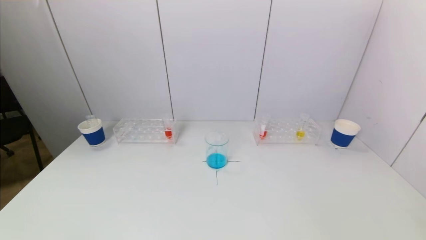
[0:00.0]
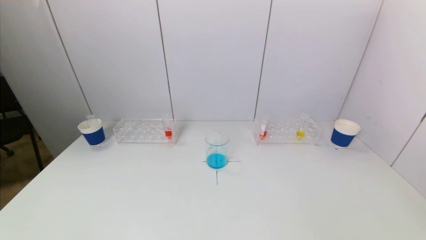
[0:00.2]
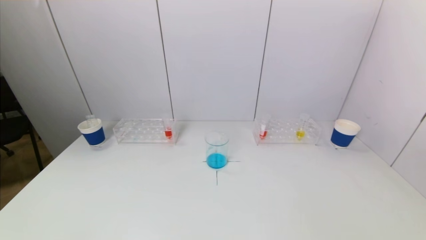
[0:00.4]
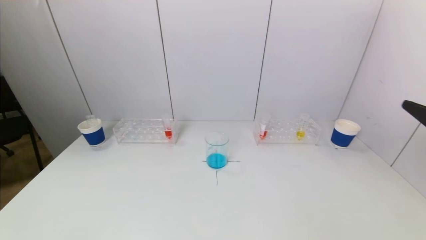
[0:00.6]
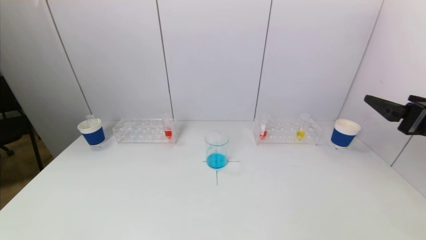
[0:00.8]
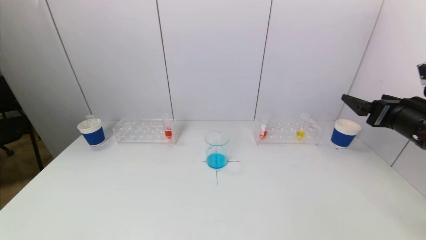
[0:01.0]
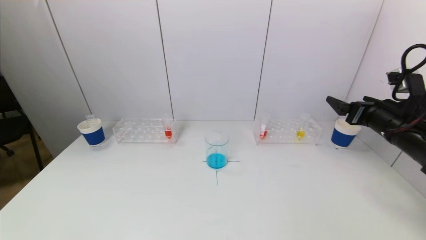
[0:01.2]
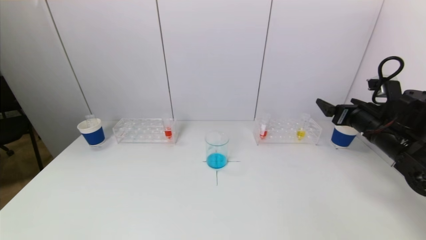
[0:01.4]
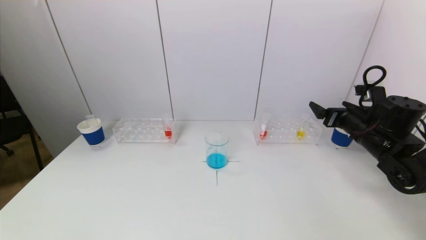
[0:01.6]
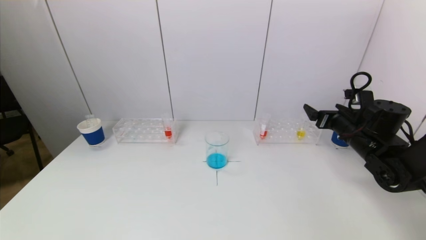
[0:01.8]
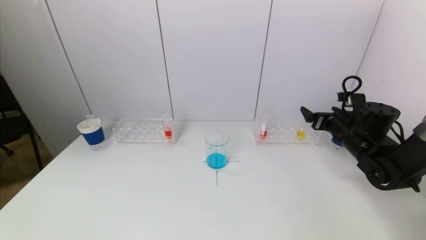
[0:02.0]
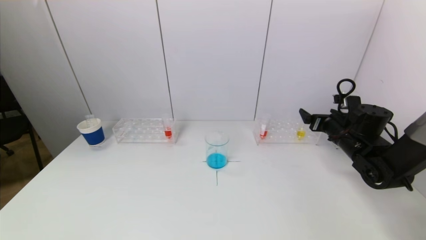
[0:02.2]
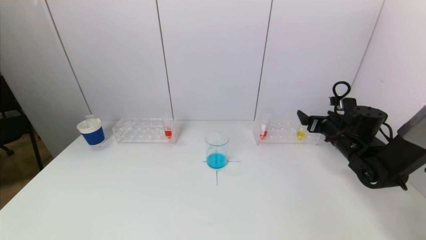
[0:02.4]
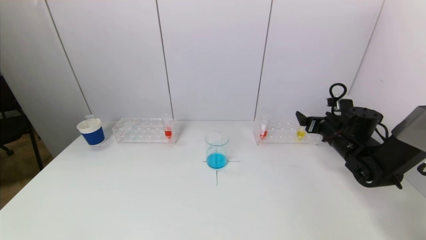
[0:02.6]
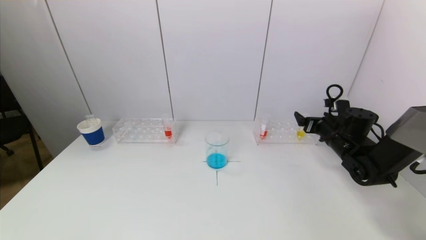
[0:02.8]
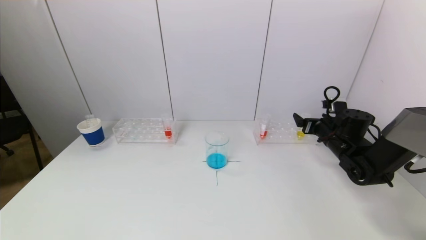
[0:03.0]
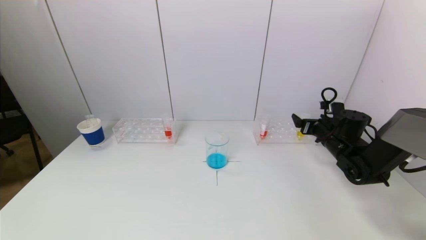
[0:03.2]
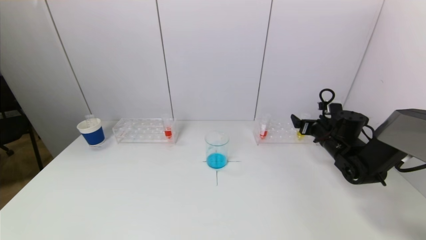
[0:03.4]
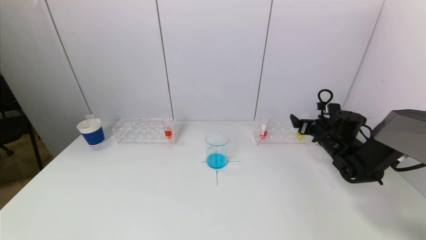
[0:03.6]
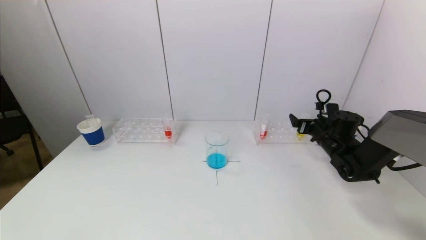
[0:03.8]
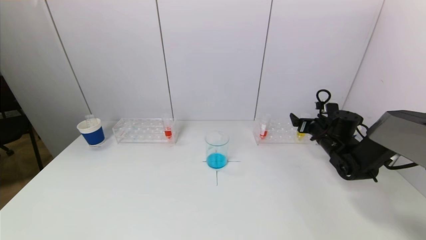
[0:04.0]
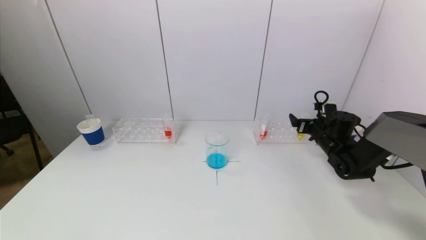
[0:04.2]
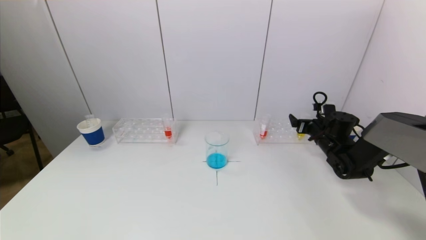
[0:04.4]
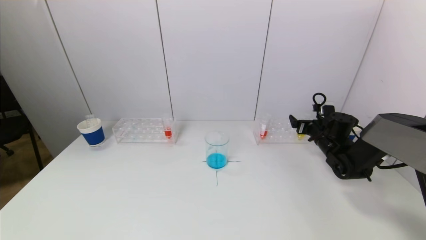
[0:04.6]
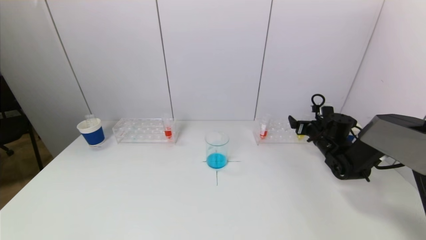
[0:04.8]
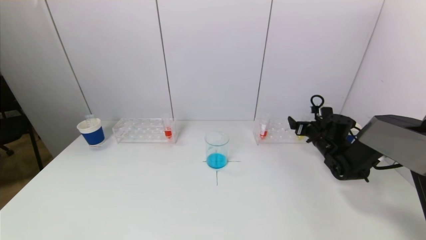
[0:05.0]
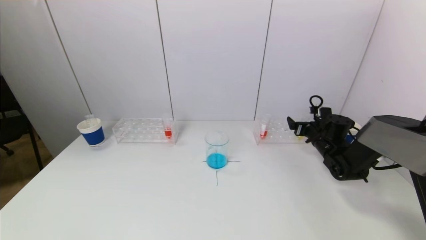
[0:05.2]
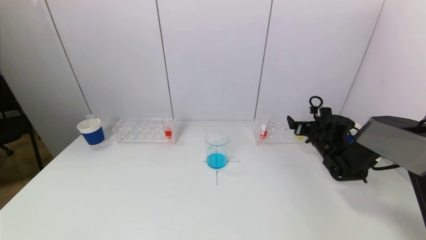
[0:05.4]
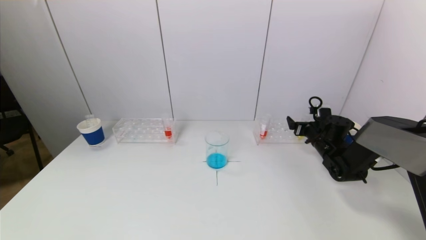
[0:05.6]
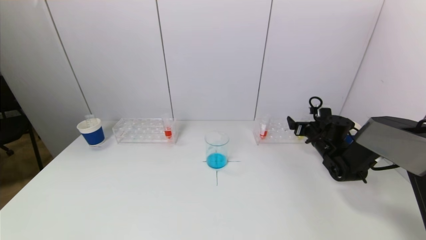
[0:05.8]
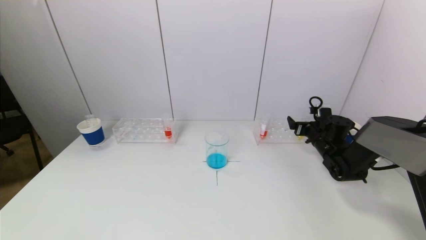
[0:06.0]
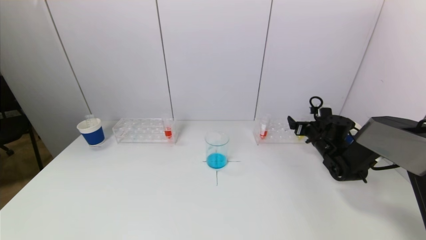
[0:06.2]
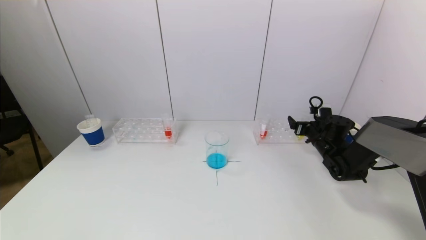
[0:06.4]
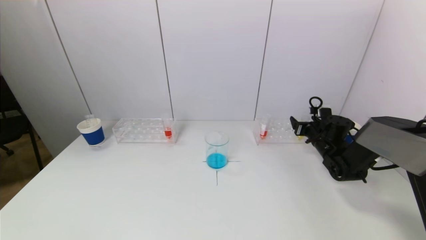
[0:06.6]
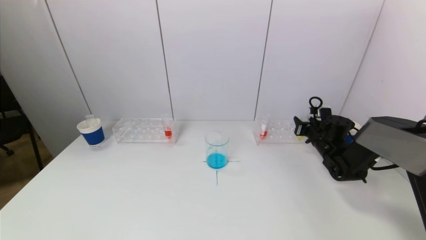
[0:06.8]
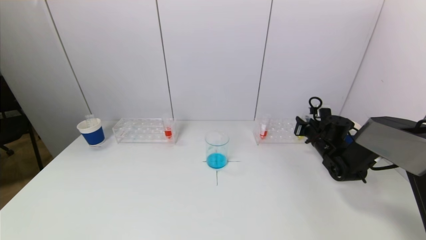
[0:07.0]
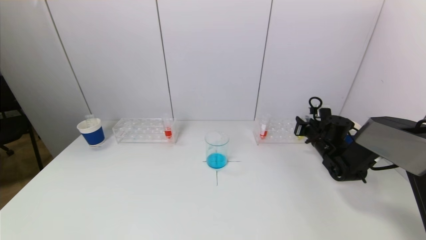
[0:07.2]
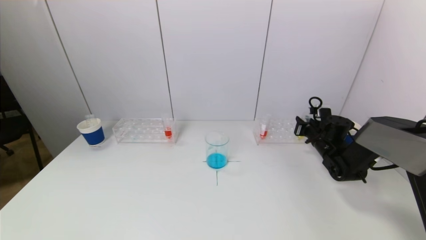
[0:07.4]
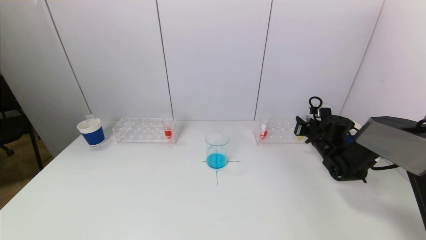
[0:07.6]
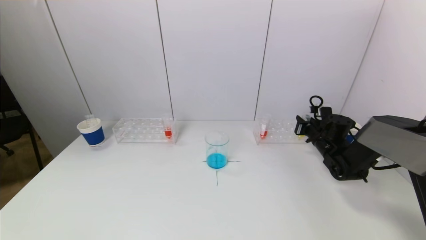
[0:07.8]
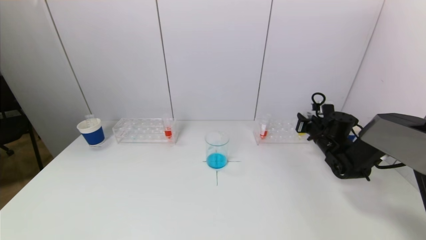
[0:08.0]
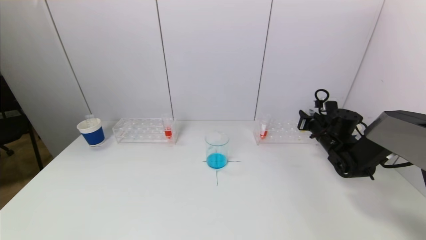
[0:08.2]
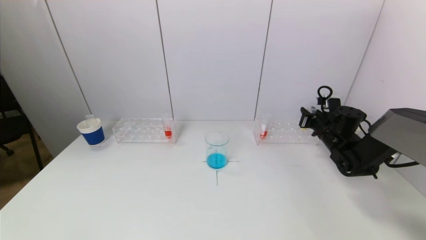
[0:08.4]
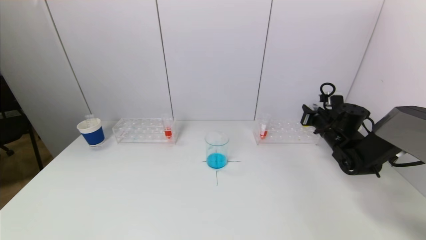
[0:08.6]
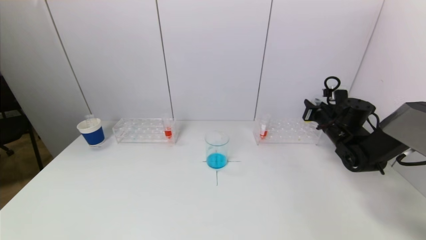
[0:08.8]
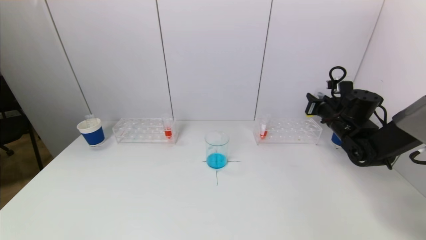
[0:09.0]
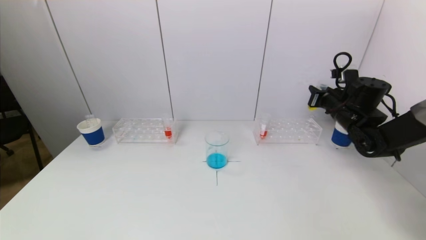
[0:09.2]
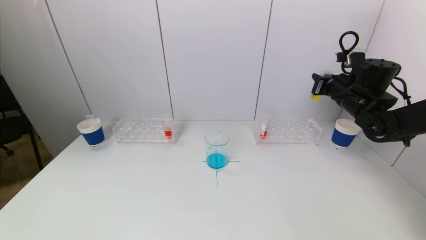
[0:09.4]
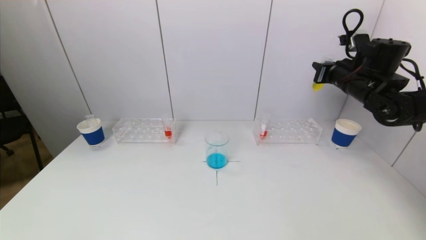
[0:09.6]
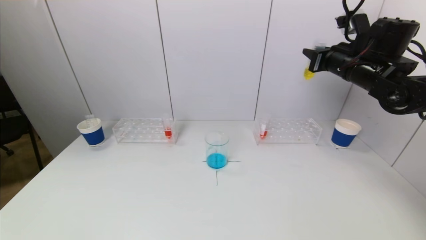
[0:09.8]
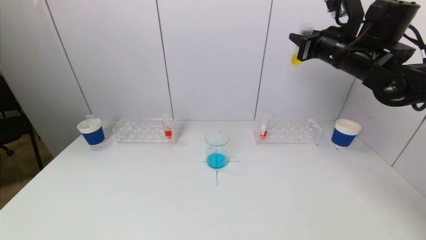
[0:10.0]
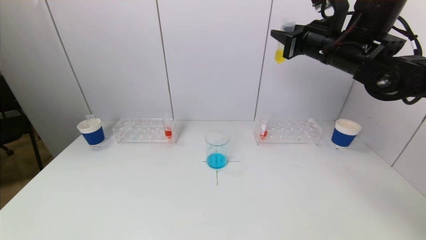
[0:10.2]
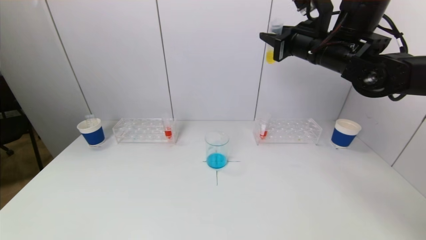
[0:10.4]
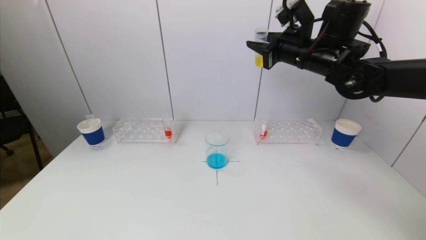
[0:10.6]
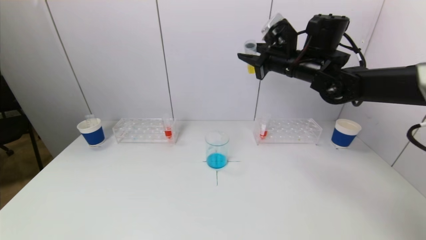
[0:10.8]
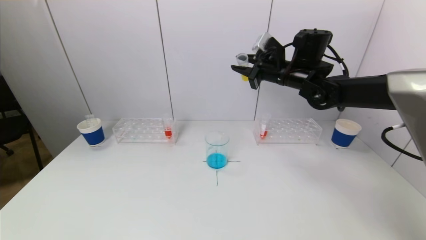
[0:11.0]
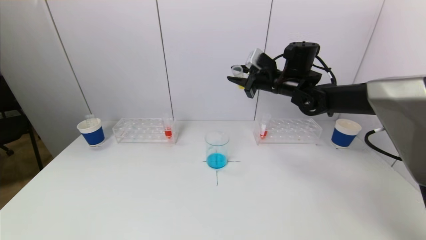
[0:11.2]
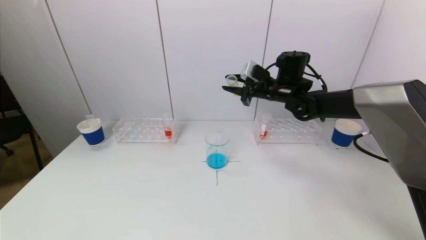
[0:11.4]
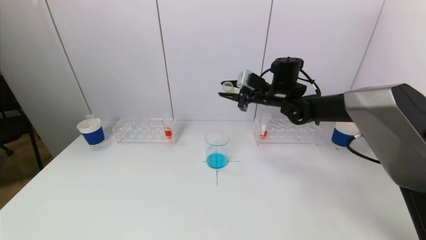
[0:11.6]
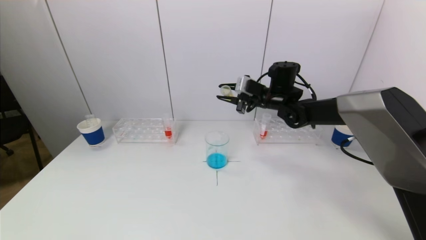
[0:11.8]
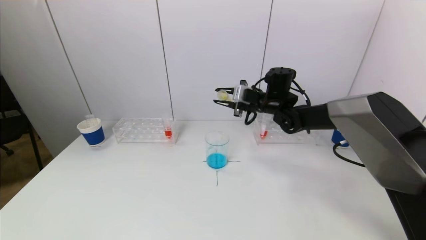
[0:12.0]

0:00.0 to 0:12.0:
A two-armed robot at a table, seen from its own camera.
Task of the whole recording: pick up a test tube with pigment on left test tube rack and a test tube with pigment on right test tube rack by grippers and pour them into the beaker.
Step, 0:00.0 to 0:07.4: Grasp the yellow reagent with the right gripper.
0:00.0 to 0:01.6: The right gripper goes some 35 cm forward.
0:01.6 to 0:03.0: The right gripper heads downward and forward, covering about 10 cm.
0:03.0 to 0:04.4: The grippers stay close to where they were, moving slightly.
0:04.4 to 0:06.0: The grippers make only small movements.
0:07.6 to 0:09.0: The right gripper travels upward by about 10 cm.
0:09.0 to 0:10.4: The right gripper moves upward and to the left, about 20 cm.
0:10.4 to 0:12.0: The right gripper travels downward, forward and to the left by approximately 20 cm.

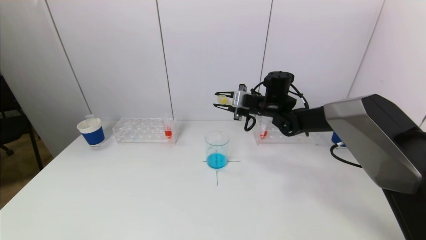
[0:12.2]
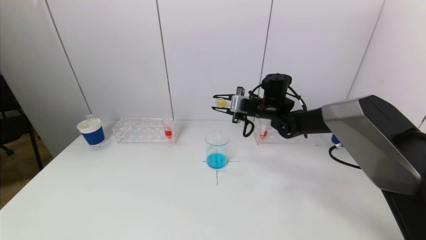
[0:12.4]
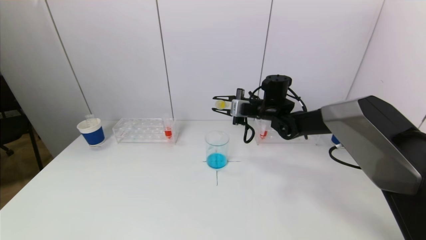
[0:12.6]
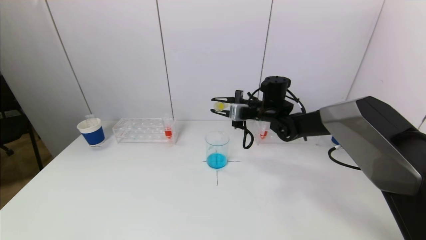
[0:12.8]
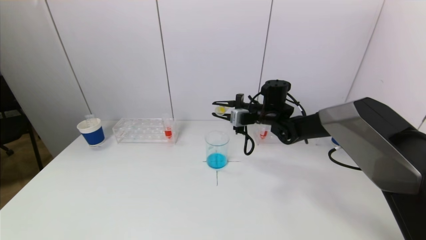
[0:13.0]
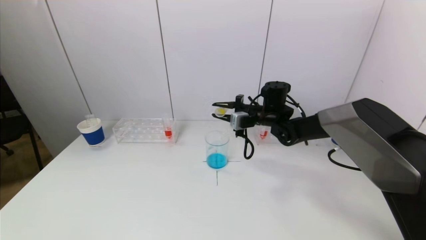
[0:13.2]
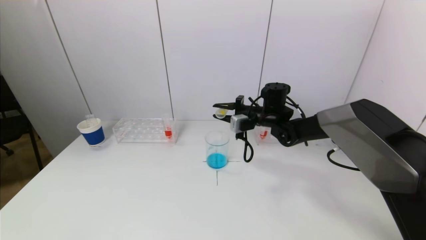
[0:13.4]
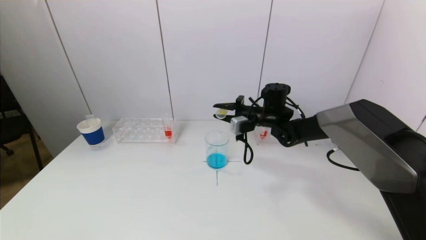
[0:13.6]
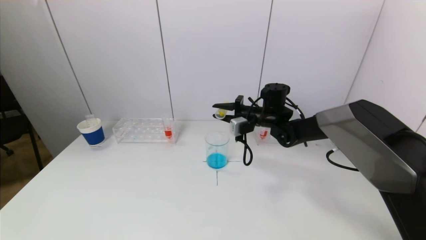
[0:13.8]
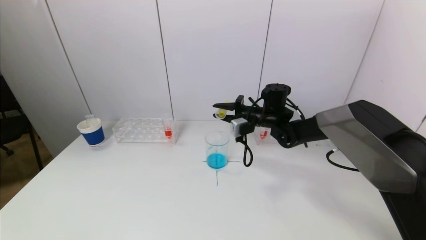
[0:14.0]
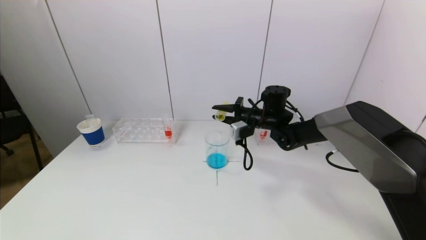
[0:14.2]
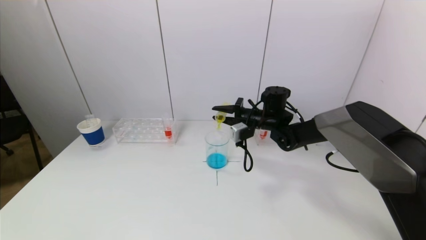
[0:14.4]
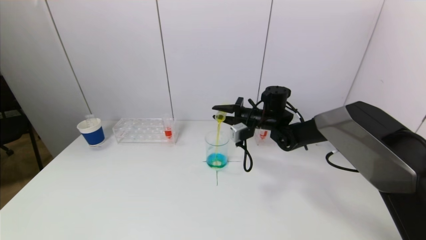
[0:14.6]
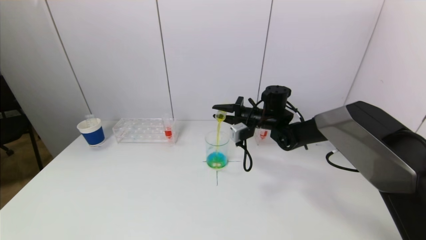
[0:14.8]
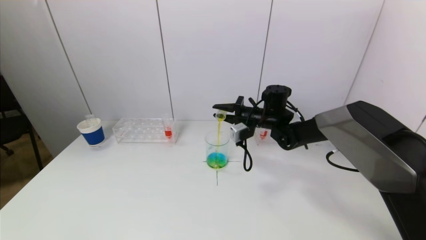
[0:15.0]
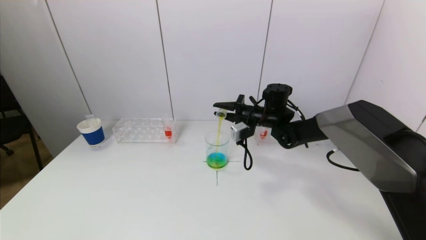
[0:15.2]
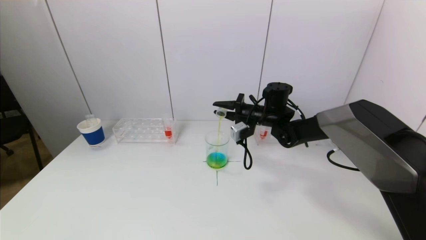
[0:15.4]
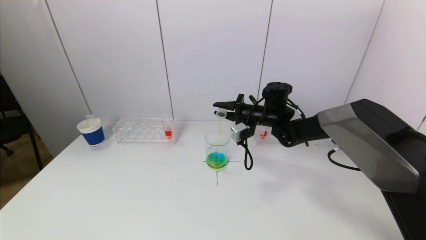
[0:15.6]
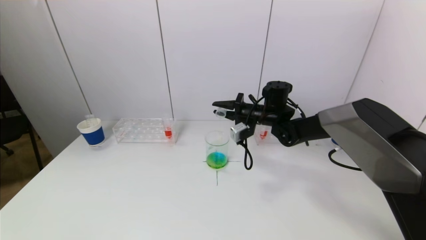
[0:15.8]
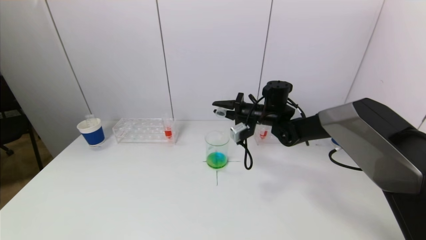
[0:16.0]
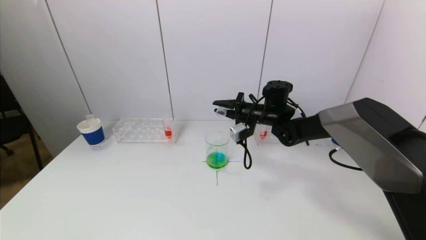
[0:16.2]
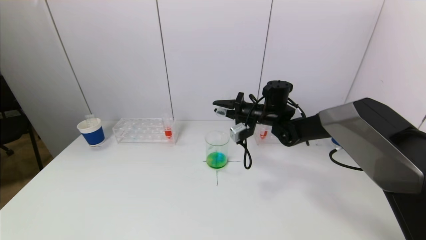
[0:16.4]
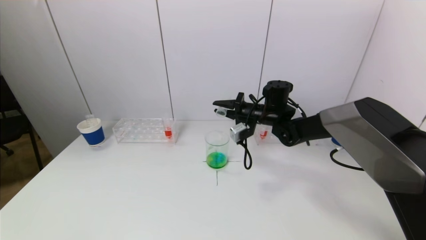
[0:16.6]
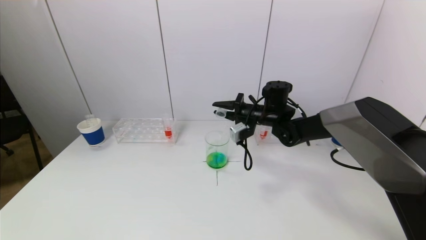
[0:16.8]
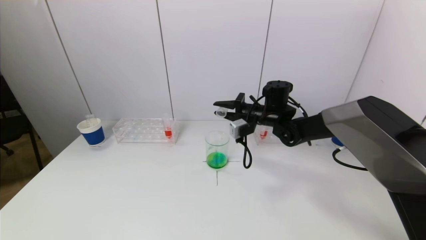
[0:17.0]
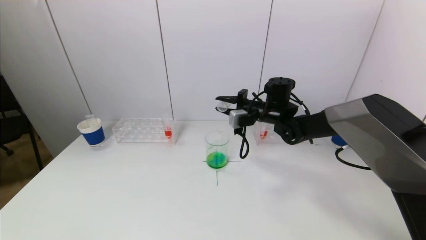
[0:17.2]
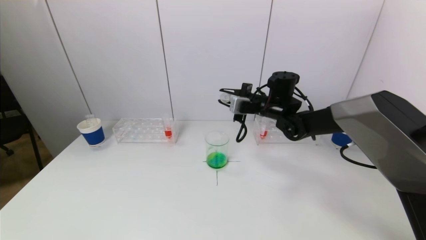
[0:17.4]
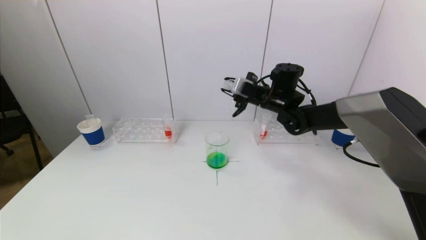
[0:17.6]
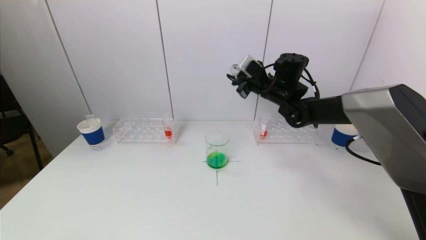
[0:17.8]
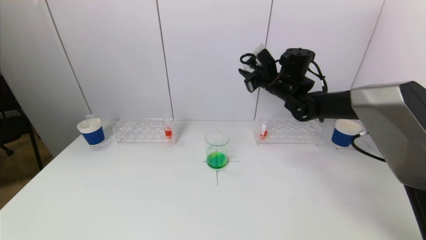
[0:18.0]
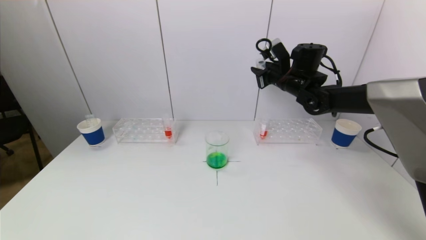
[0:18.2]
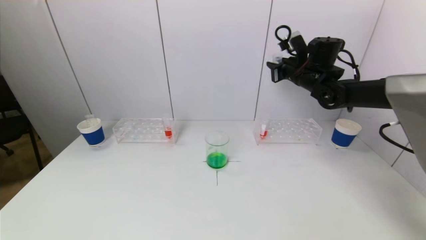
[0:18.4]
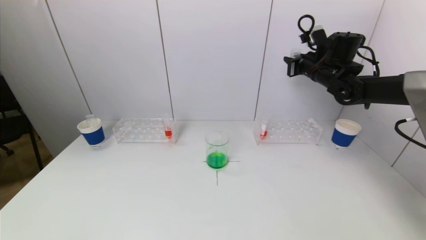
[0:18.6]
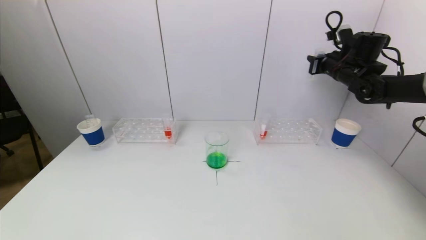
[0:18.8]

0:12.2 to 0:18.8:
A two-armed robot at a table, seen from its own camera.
Task of the whole recording: pick up a test tube with pigment on left test tube rack and a test tube with pigment on right test tube rack by grippers and pour them into the beaker.
Step, 0:12.2 to 0:17.2: Pour the yellow reagent into the graduated cylinder with the right gripper.
0:13.8 to 0:15.4: The grippers move only a little.
0:15.4 to 0:17.2: The grippers move only a little.
0:17.2 to 0:18.8: The right gripper heads to the right and upward, covering approximately 25 cm.
